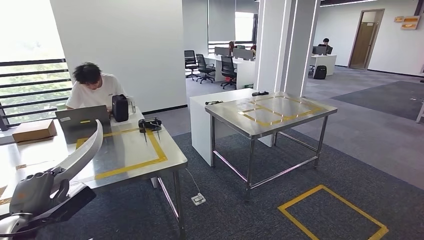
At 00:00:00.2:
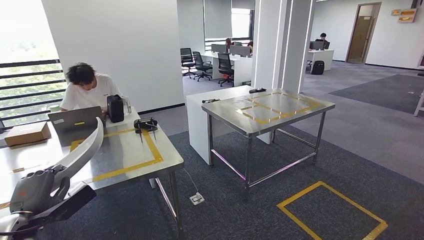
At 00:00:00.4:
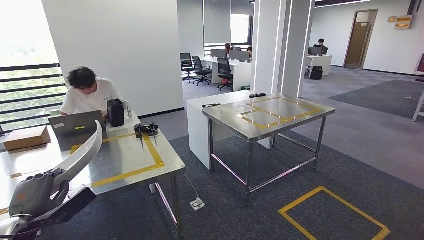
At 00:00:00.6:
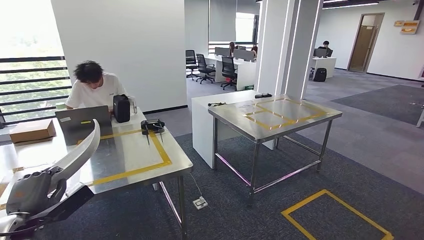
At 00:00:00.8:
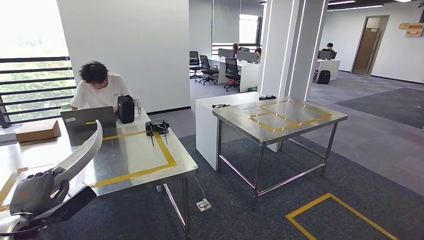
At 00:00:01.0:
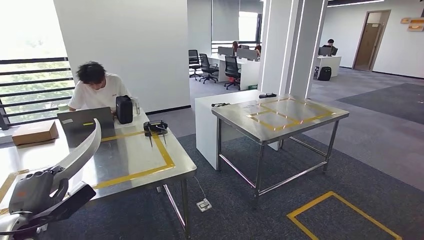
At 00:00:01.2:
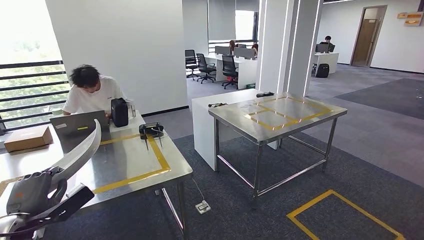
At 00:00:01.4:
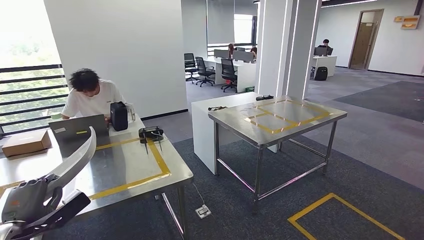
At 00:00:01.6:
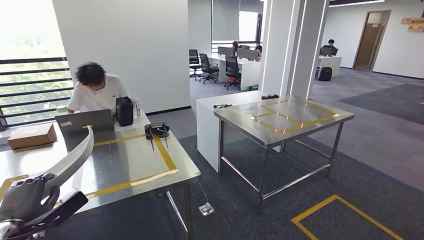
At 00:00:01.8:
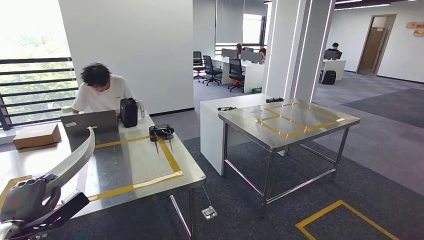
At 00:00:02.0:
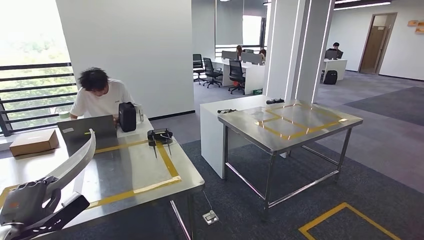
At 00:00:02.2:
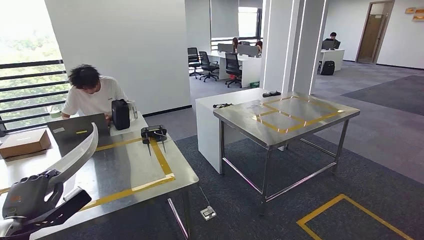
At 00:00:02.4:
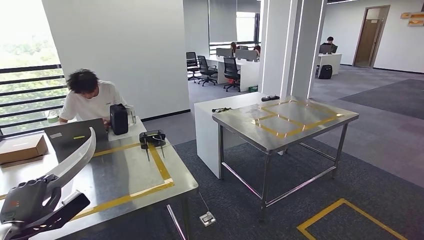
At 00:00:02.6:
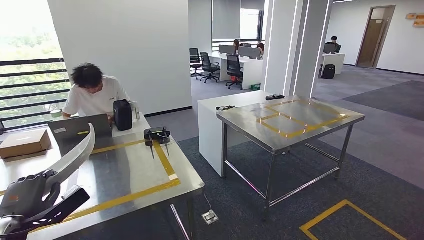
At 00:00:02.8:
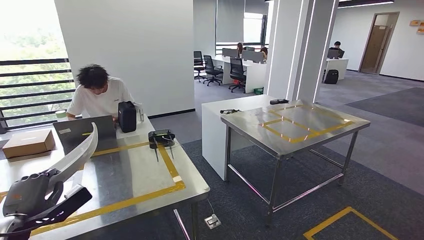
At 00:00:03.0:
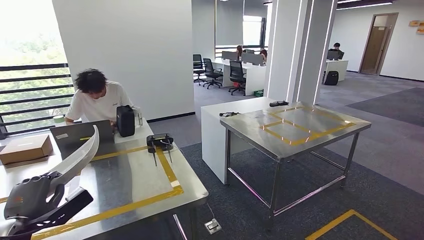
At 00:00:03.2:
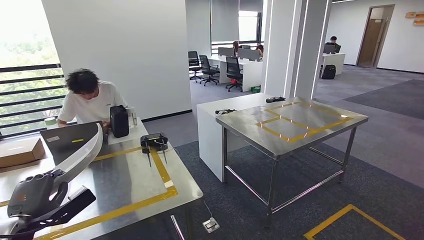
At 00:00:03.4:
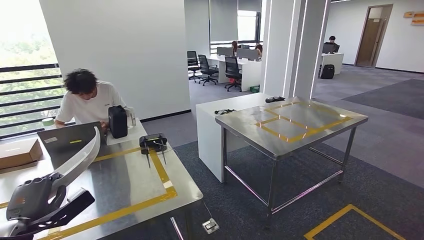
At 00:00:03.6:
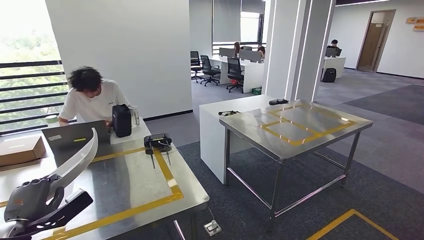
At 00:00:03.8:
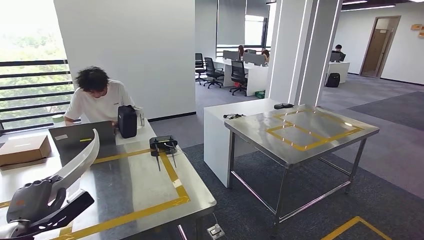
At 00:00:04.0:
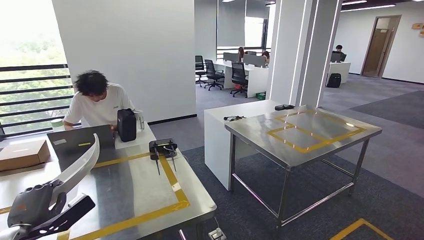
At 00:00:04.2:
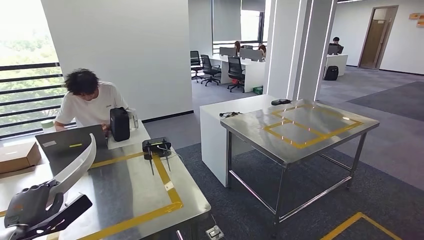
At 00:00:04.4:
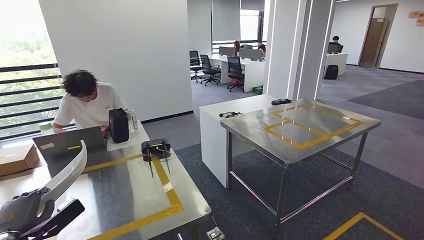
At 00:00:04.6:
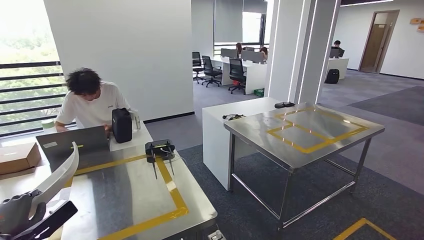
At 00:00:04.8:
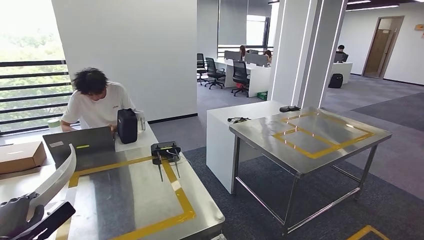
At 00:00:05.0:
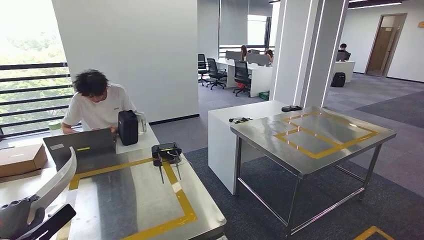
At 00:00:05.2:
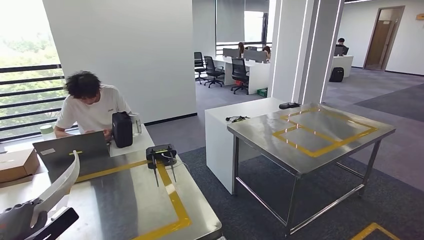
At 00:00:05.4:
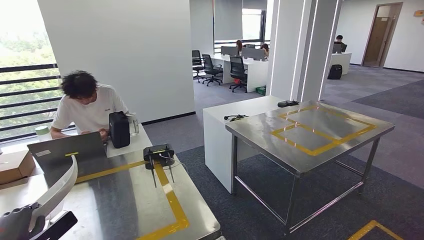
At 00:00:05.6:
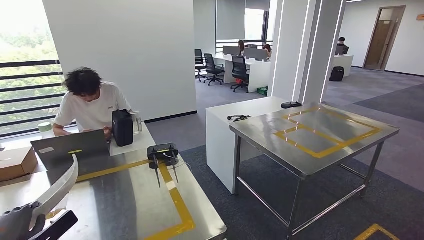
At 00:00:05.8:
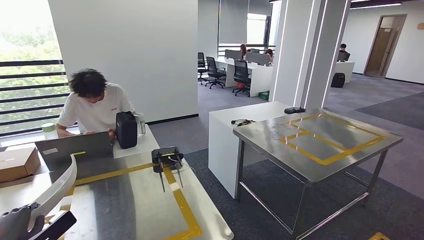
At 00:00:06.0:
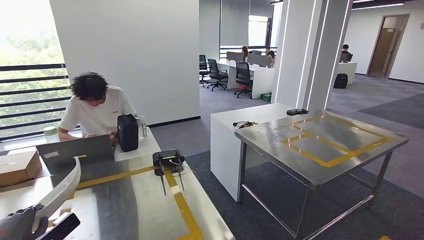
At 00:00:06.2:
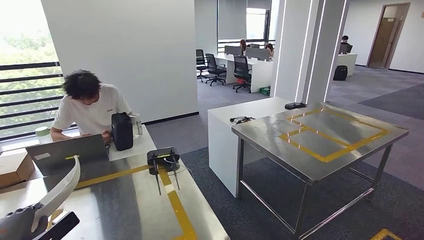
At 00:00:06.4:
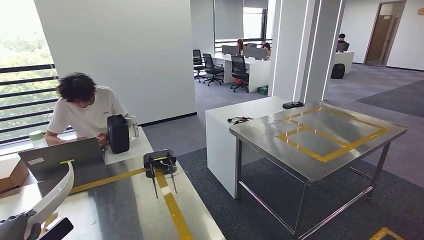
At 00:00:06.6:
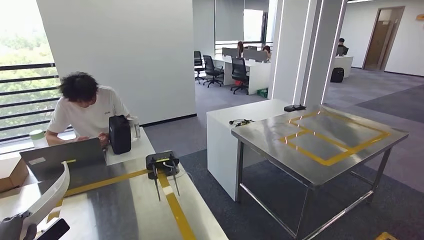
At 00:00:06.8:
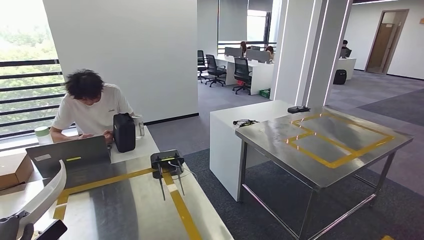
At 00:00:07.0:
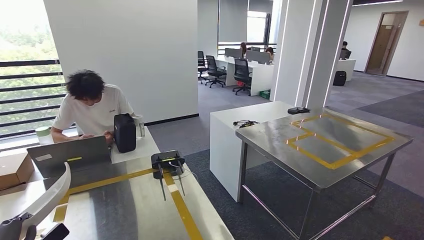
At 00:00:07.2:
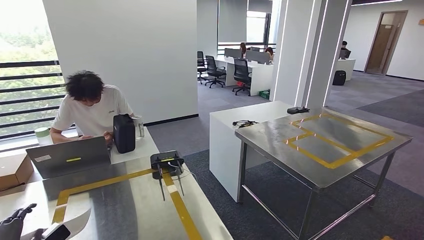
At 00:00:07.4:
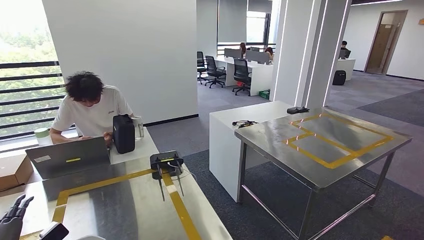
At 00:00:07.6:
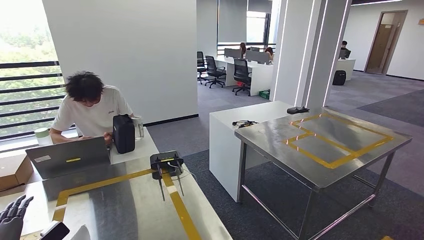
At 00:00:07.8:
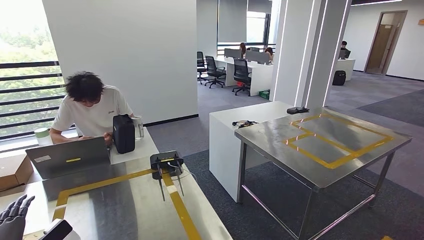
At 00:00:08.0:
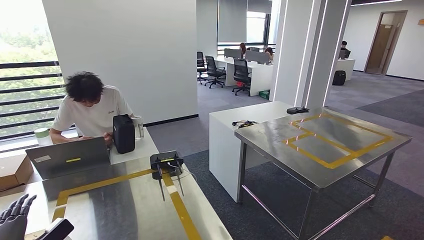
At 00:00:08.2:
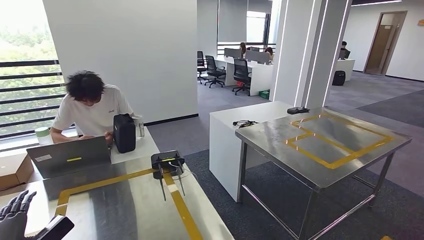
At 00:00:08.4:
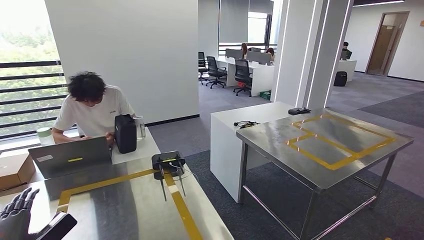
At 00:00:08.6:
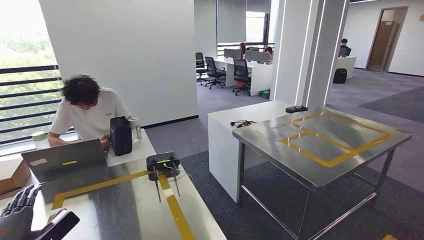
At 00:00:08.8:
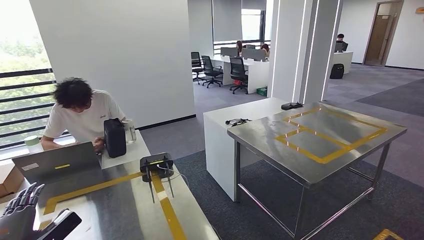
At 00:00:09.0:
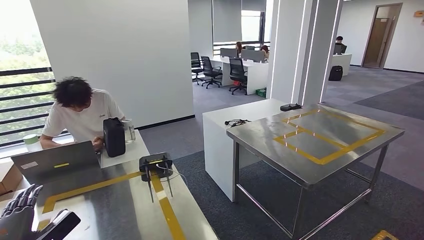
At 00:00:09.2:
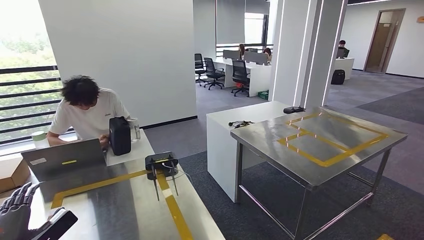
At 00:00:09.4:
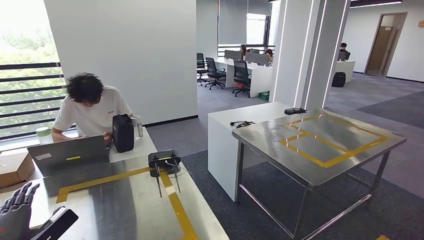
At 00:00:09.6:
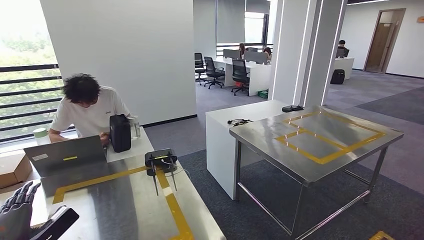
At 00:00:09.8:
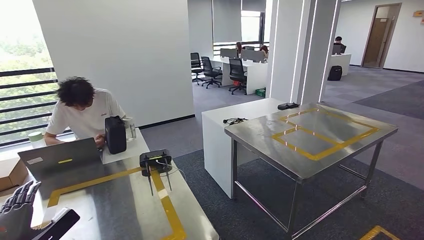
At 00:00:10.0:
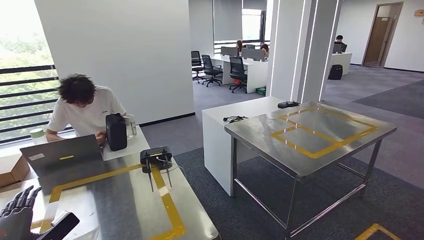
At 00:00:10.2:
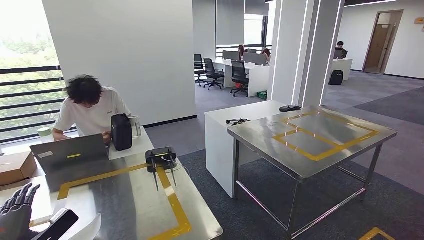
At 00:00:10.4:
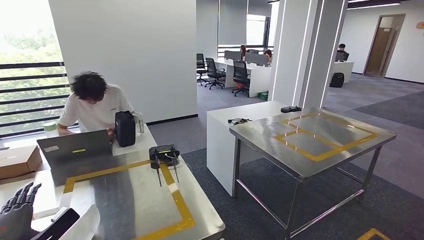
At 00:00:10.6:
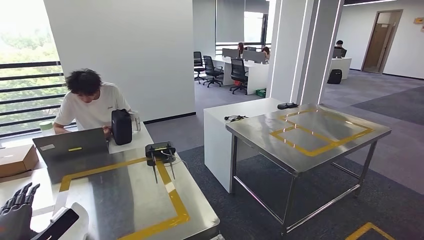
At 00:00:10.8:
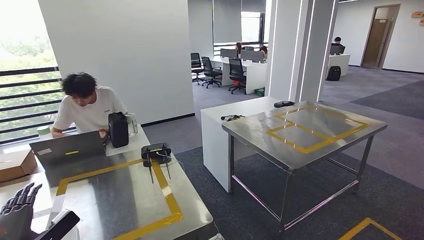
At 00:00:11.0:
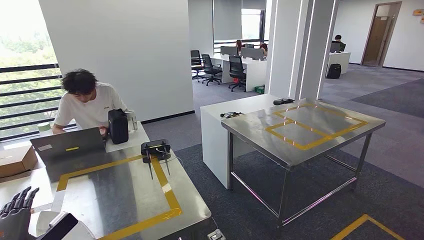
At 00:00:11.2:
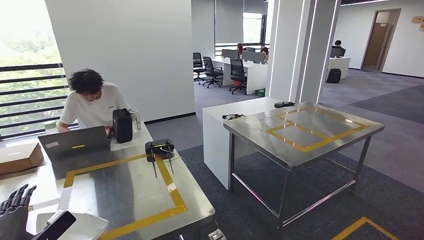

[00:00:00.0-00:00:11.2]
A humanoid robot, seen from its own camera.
Step, 00:00:00.0 to 00:00:08.4: Insert the small parts into the corresponding slots on the workbench.

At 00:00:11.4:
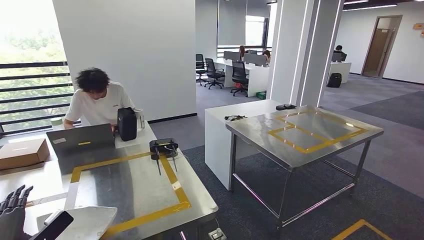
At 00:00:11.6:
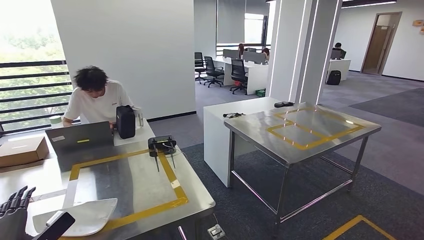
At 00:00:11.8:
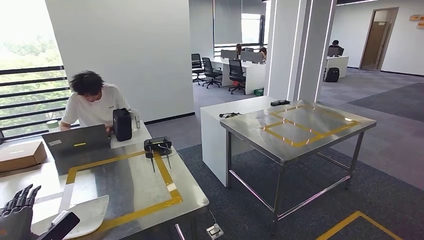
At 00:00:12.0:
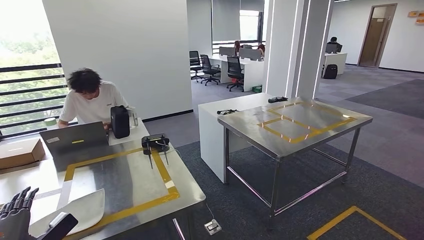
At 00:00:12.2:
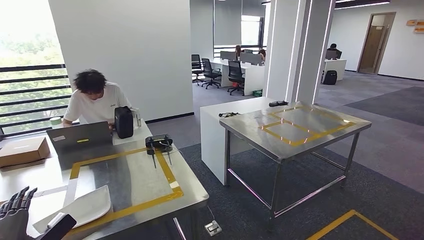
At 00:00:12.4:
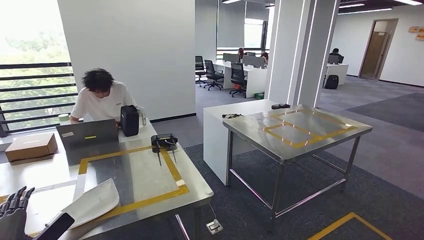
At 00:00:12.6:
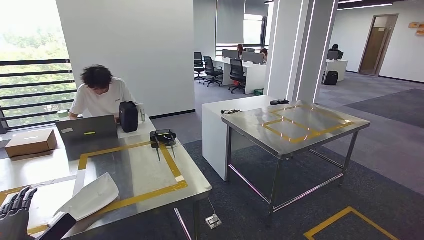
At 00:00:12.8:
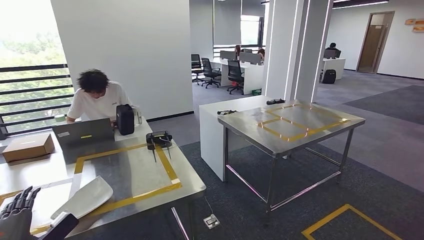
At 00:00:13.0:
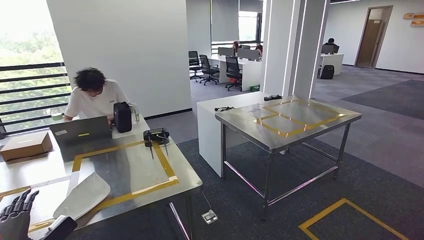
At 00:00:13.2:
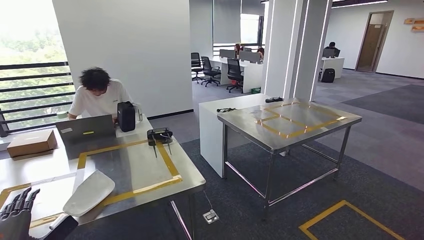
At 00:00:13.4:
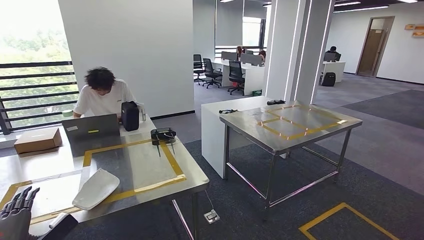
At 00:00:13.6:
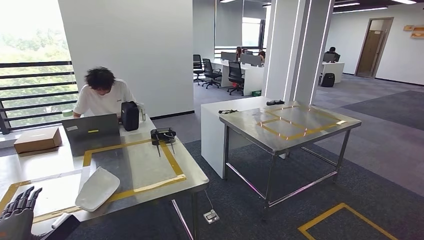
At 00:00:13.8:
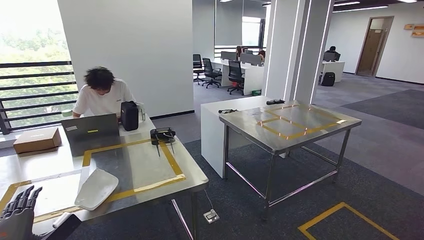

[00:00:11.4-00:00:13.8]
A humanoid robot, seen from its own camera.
Step, 00:00:11.4 to 00:00:13.8: Return to the initial position at the workbench.
